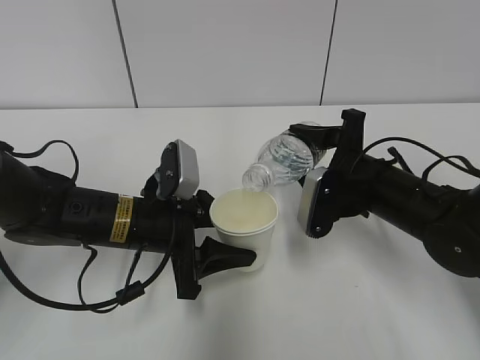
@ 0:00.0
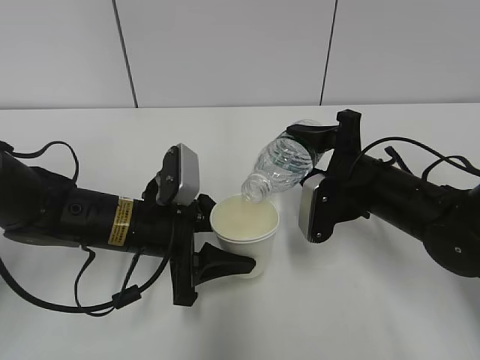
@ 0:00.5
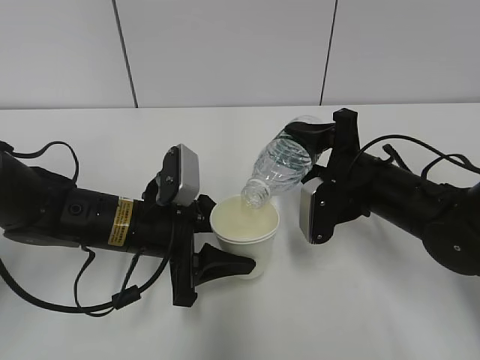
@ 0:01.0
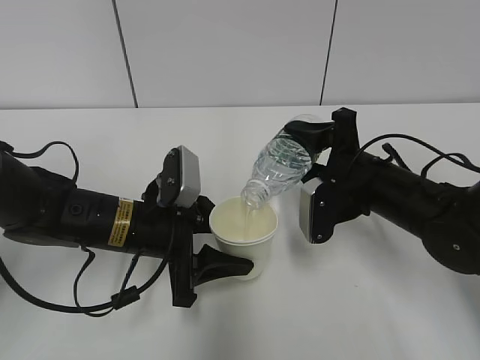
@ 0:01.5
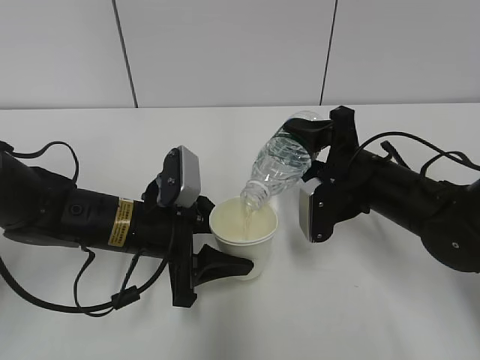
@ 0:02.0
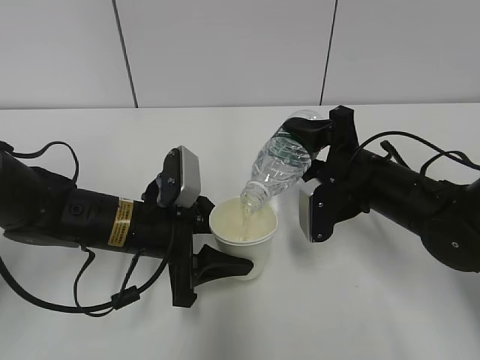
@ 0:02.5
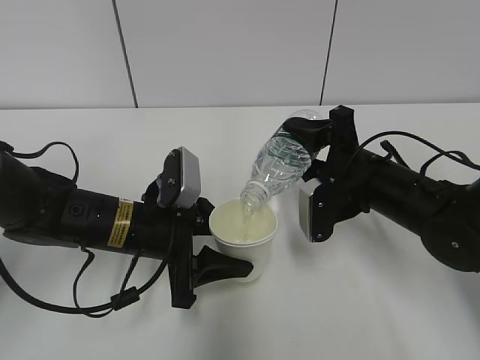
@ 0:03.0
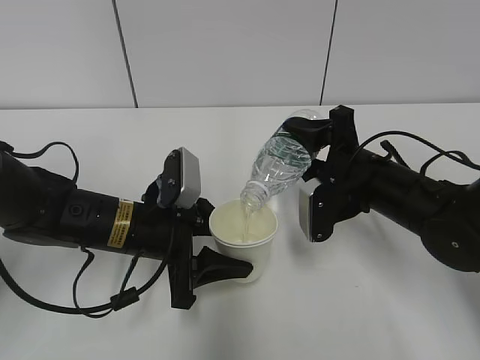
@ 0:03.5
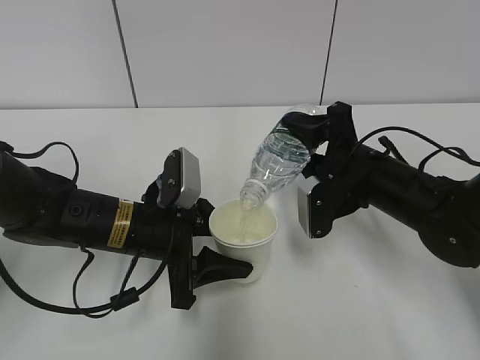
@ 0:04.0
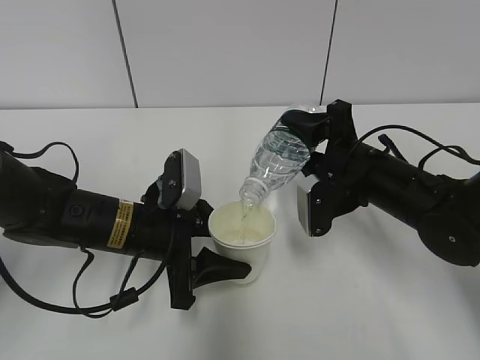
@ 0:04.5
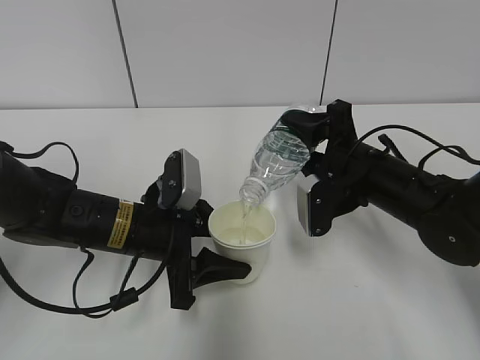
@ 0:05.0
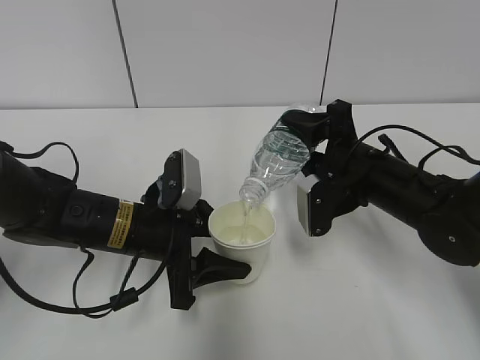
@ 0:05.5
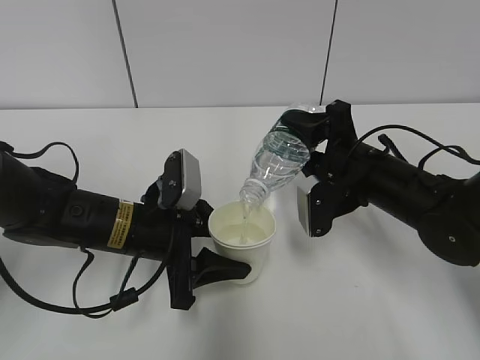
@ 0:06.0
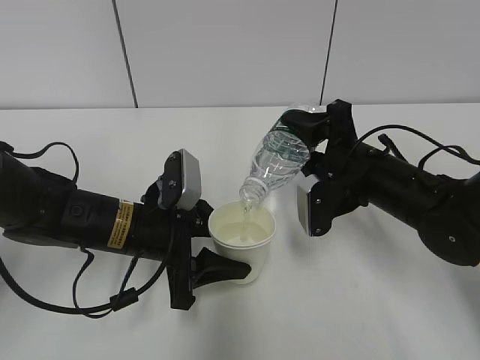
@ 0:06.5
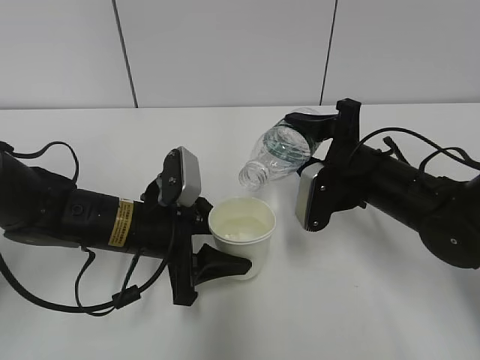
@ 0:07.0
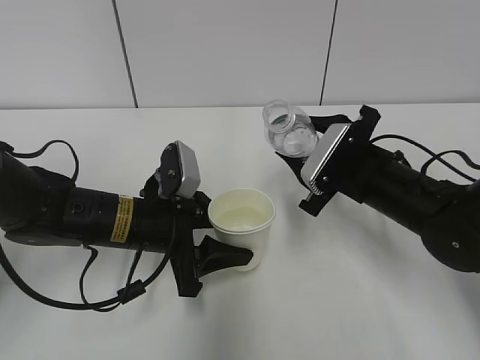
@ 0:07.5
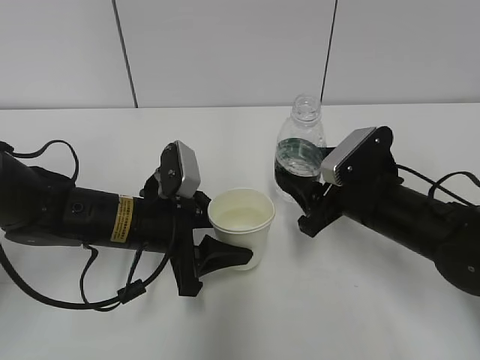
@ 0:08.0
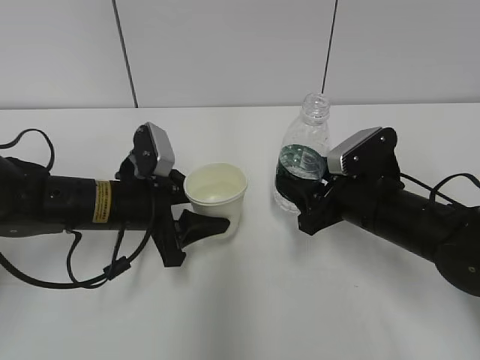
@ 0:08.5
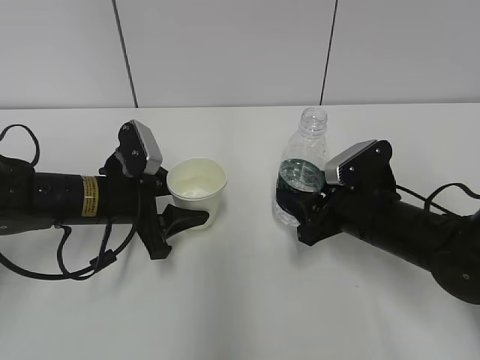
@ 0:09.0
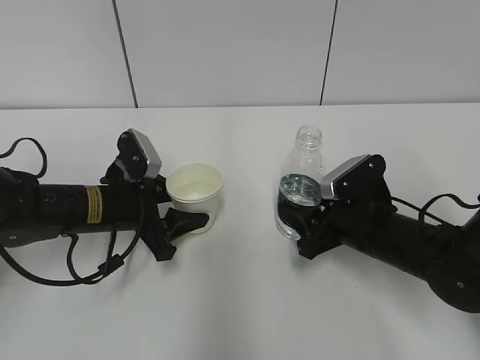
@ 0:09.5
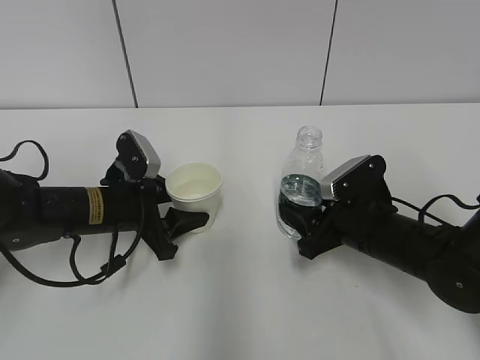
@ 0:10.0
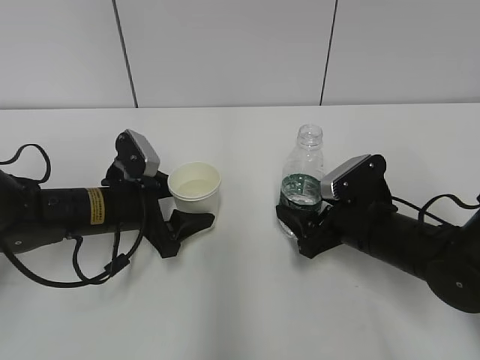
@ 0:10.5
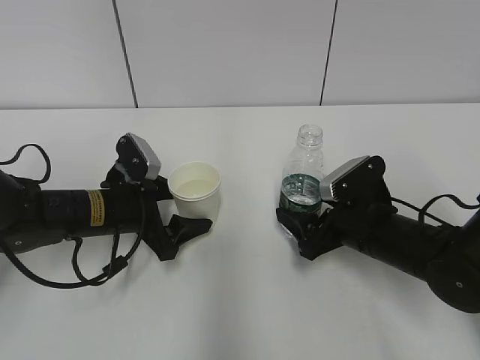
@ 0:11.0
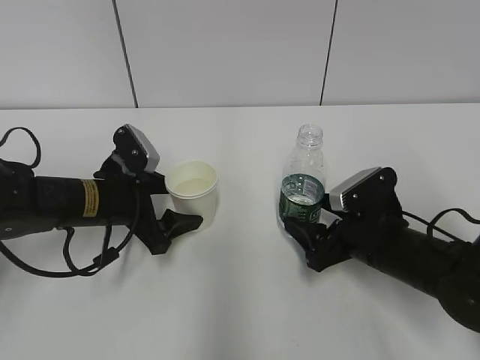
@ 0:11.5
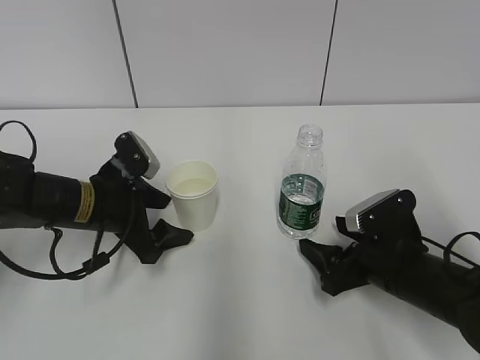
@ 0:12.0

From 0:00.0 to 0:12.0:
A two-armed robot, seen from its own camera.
Step, from 0:00.5 to 0:01.0: Collect water with the right hand.
From 0:00.0 to 0:02.0: The grippers move only a little.
From 0:02.0 to 0:04.0: Neither gripper changes place.
From 0:04.0 to 0:06.0: Both grippers stay about where they are.
From 0:08.0 to 0:10.0: The left gripper heads to the left, covering about 5 cm.
From 0:10.0 to 0:12.0: The left gripper opens its fingers; the right gripper opens.

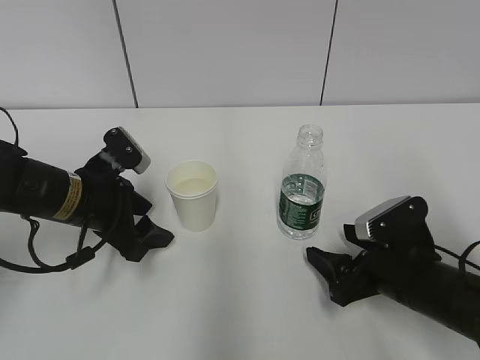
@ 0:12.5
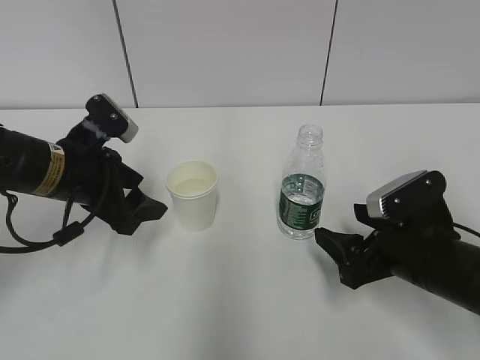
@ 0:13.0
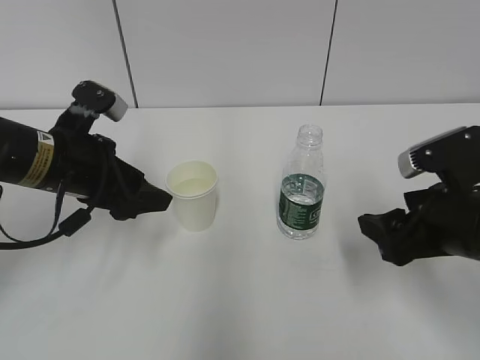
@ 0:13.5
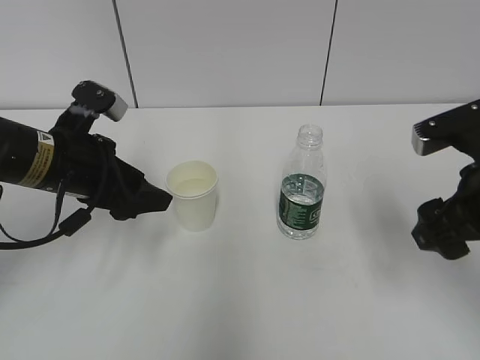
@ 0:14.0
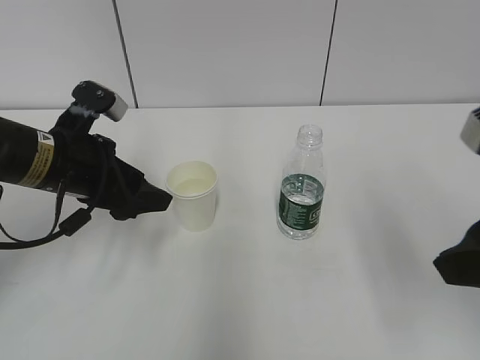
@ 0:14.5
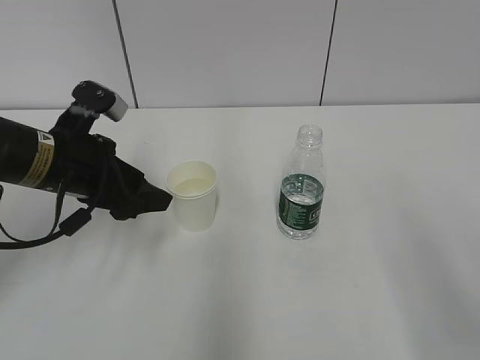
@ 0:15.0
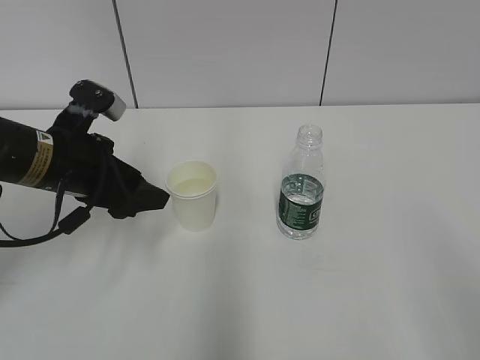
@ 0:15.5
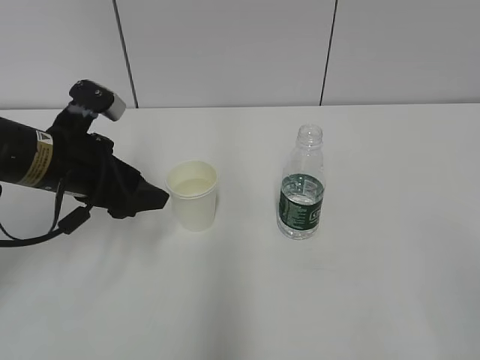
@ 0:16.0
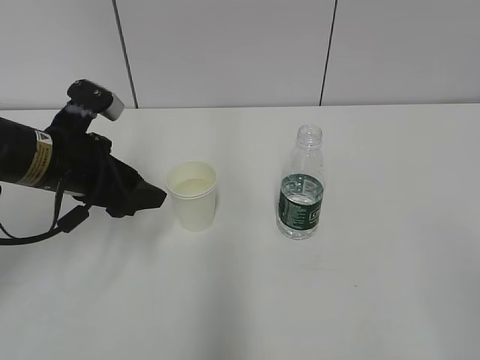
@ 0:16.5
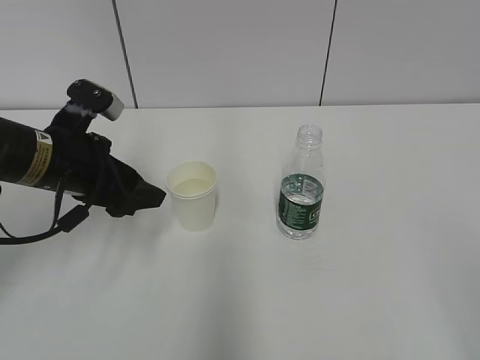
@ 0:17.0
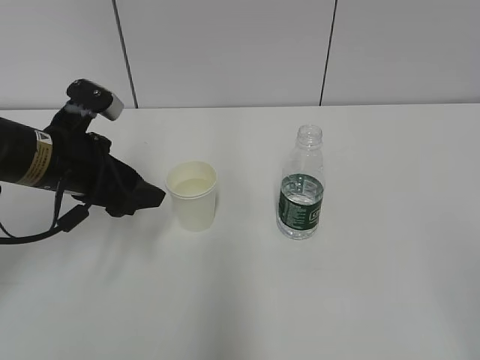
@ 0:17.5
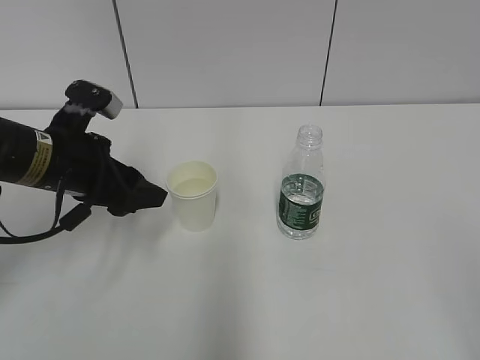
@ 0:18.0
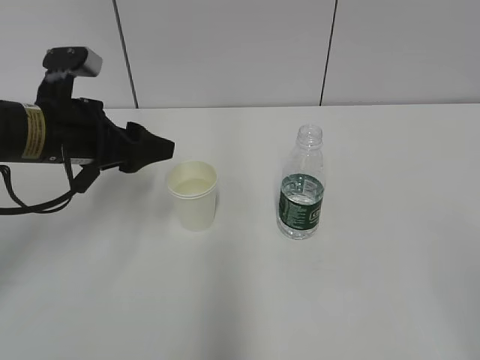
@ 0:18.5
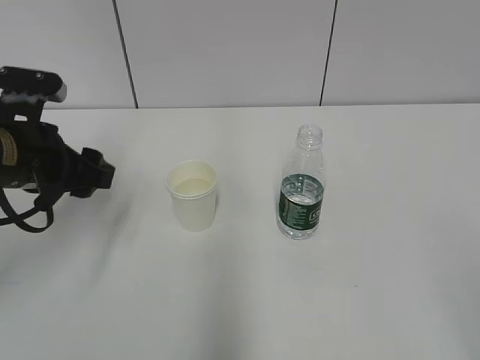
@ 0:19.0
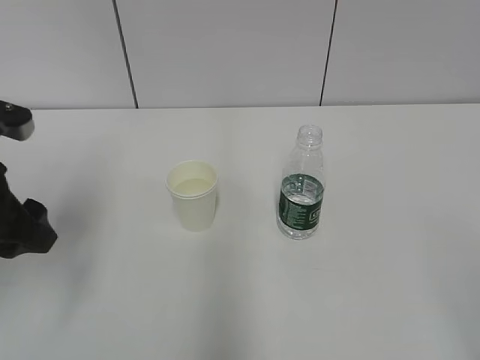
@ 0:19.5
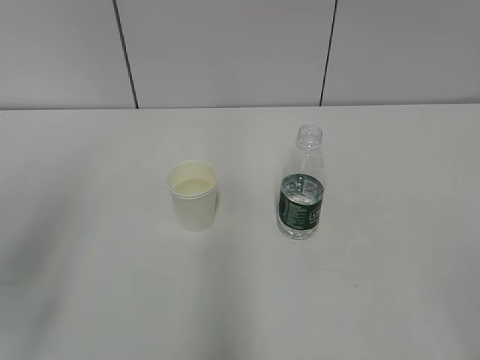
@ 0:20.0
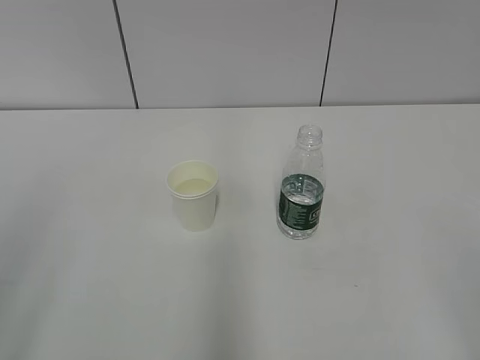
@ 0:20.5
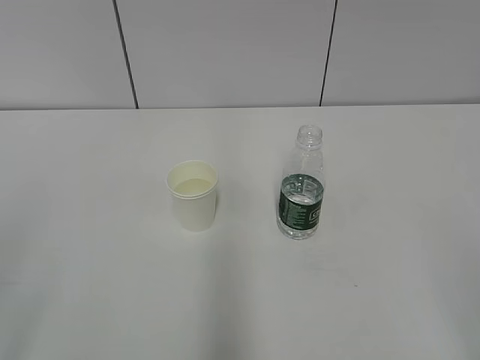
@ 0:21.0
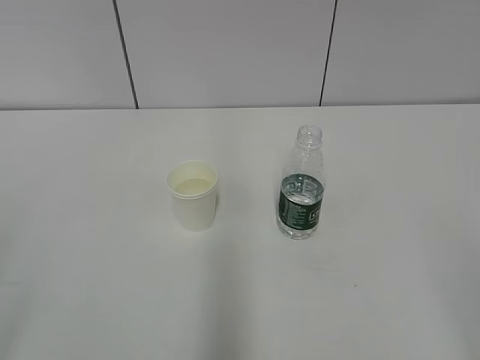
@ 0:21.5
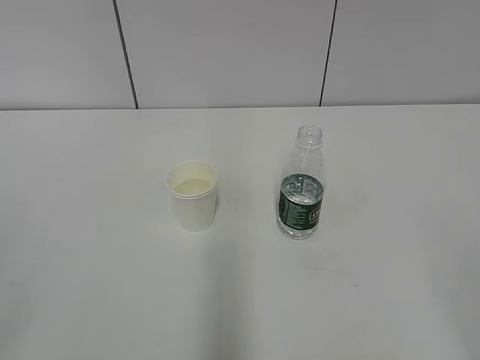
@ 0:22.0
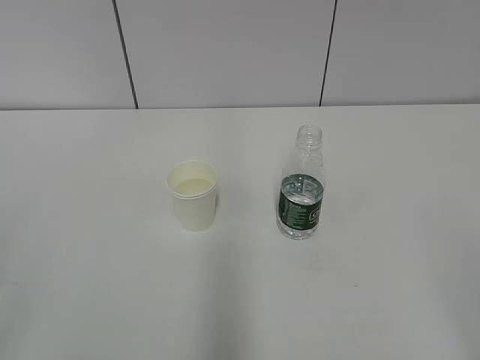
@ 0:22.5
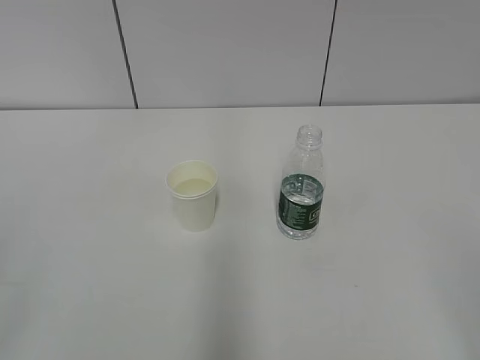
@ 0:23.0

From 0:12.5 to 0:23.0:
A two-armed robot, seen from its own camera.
From 0:12.5 to 0:14.5: The right gripper travels upward by approximately 20 cm. Meanwhile the left gripper goes about 5 cm upward.
From 0:14.5 to 0:16.5: The right gripper is displaced backward by some 20 cm.
From 0:19.0 to 0:21.0: The left gripper travels backward by roughly 30 cm.

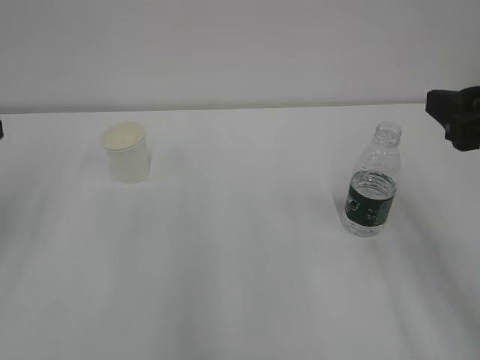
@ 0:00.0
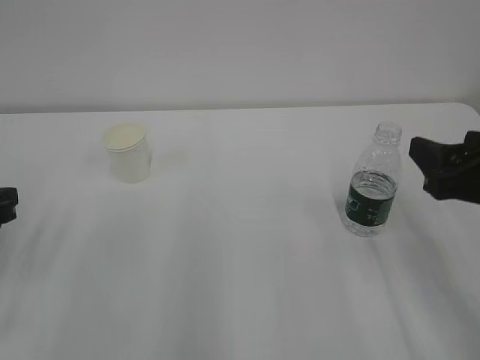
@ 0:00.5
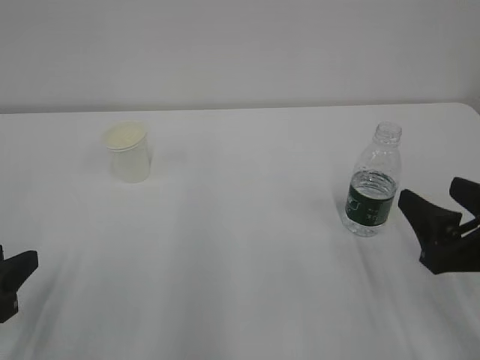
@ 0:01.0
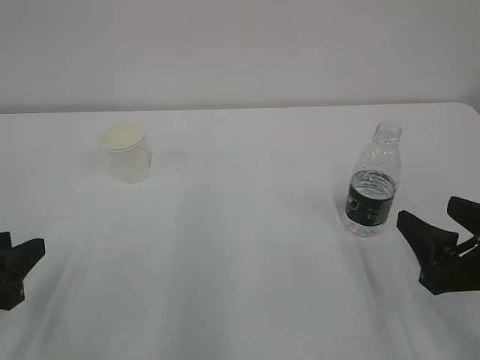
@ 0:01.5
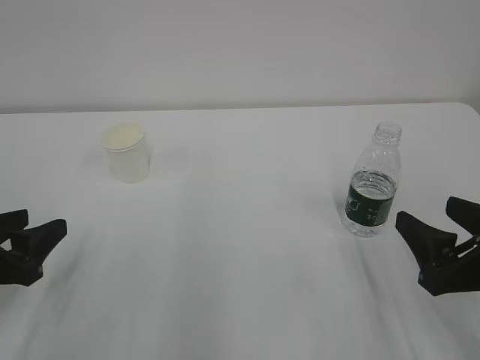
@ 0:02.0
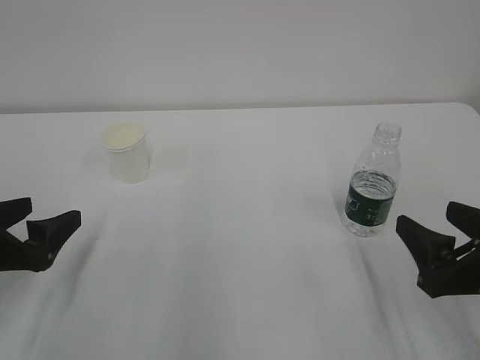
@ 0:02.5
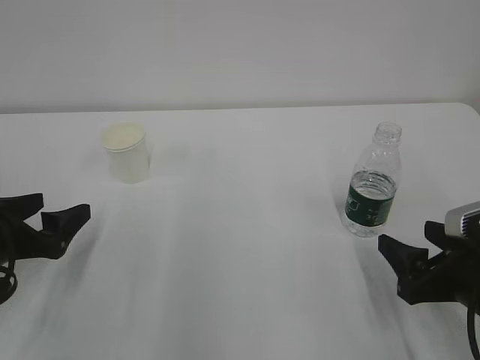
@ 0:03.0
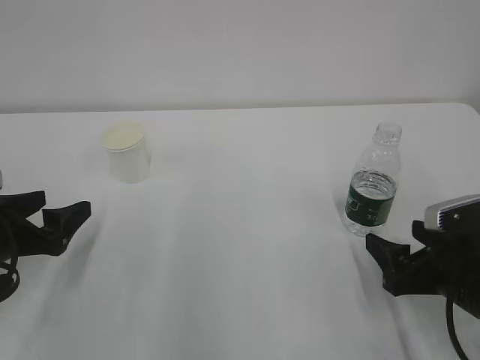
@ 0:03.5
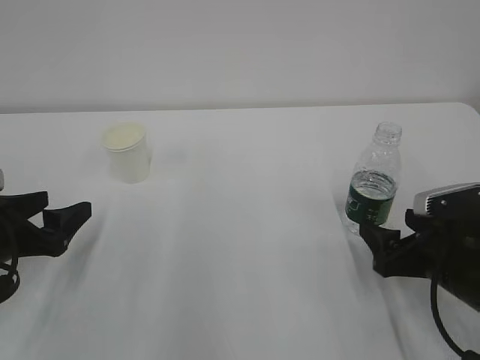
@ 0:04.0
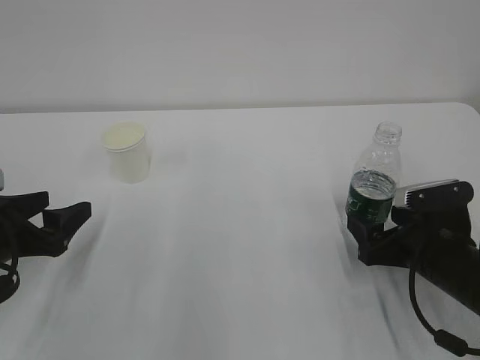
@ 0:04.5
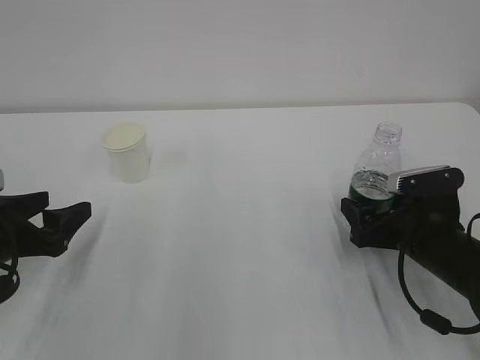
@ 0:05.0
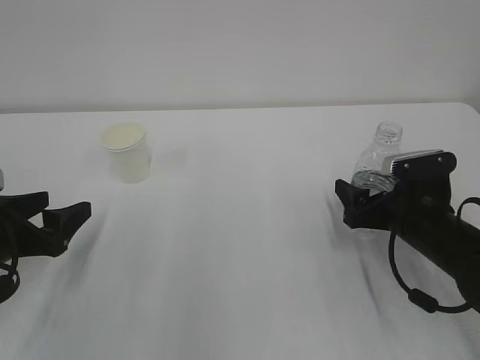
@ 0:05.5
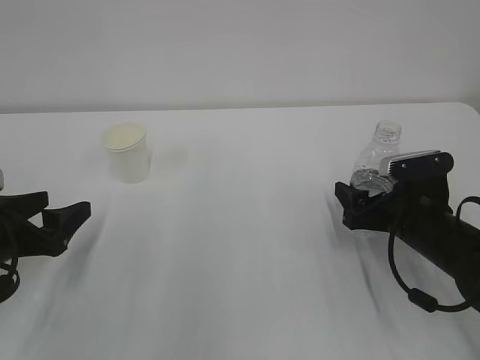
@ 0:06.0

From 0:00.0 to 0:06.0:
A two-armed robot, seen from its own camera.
From 0:00.0 to 0:02.0: The right gripper heads downward, covering some 15 cm, while the left gripper shifts about 15 cm downward and backward.
From 0:02.0 to 0:04.0: The right gripper moves forward and downward, about 10 cm, while the left gripper opens.
From 0:04.0 to 0:06.0: The right gripper is displaced forward by some 5 cm.
